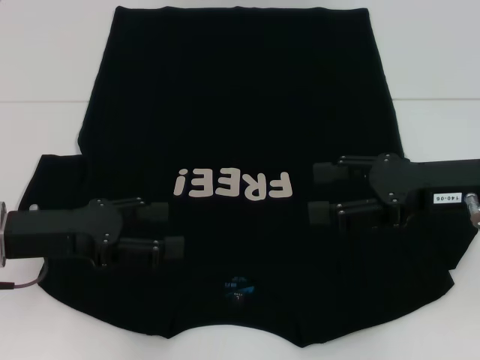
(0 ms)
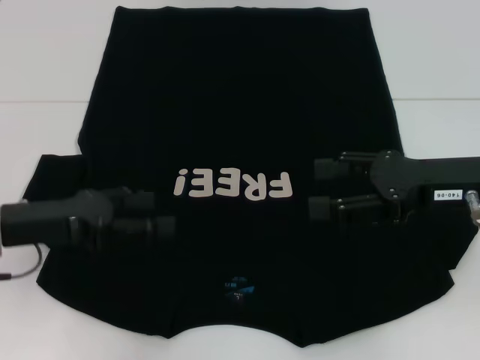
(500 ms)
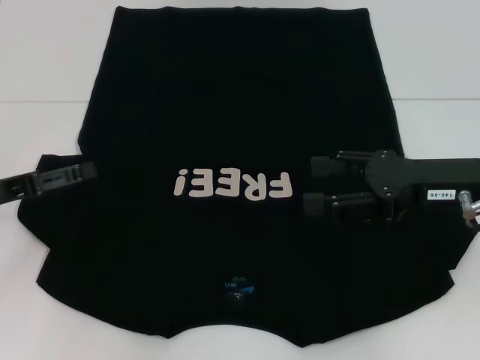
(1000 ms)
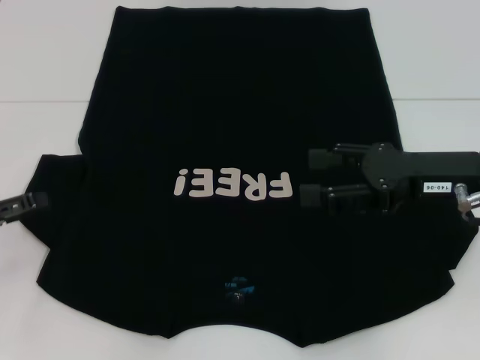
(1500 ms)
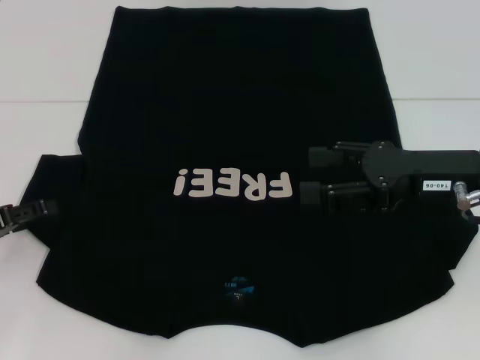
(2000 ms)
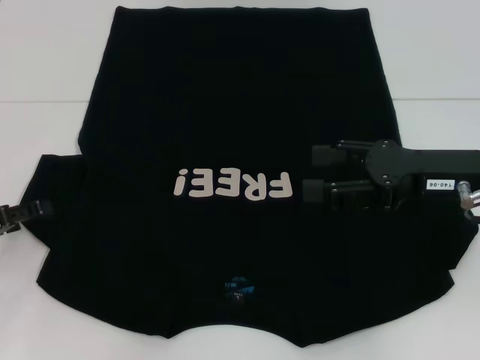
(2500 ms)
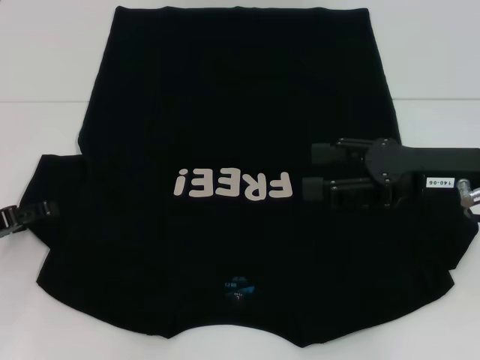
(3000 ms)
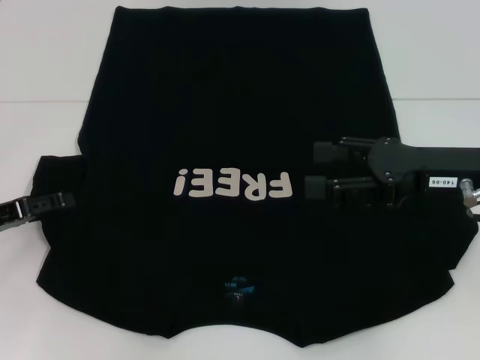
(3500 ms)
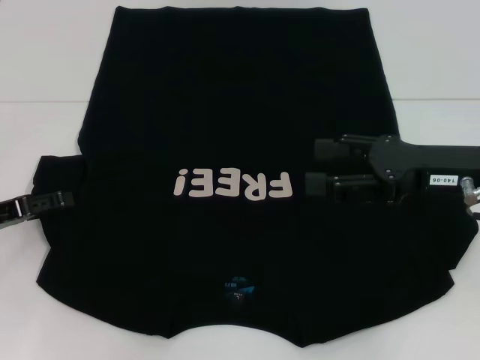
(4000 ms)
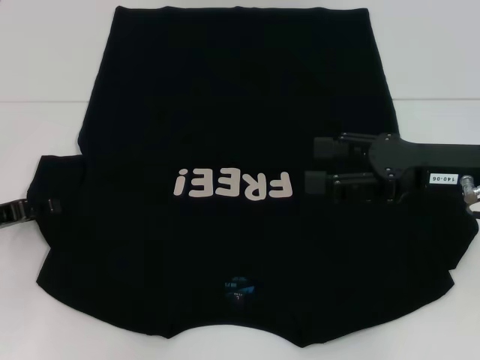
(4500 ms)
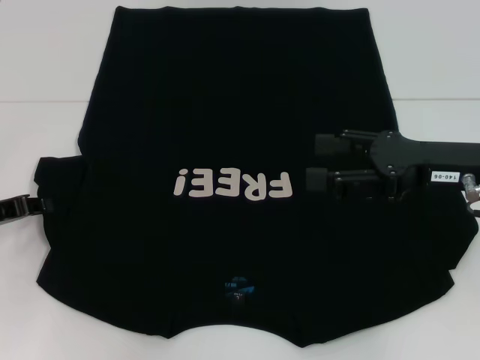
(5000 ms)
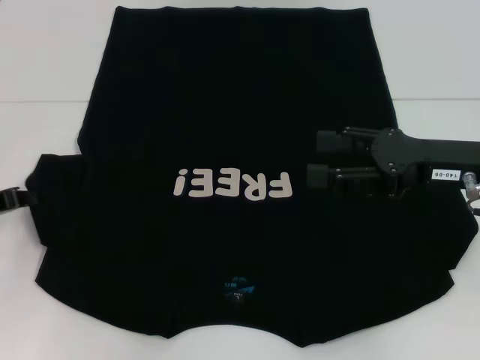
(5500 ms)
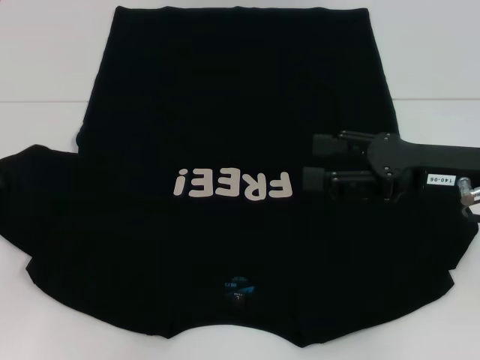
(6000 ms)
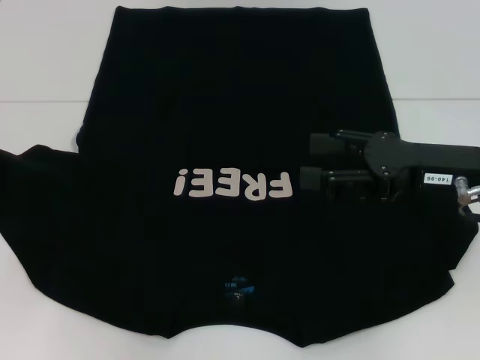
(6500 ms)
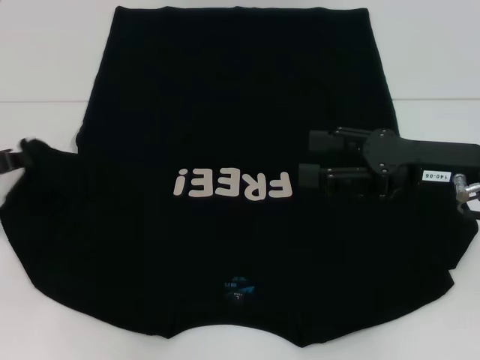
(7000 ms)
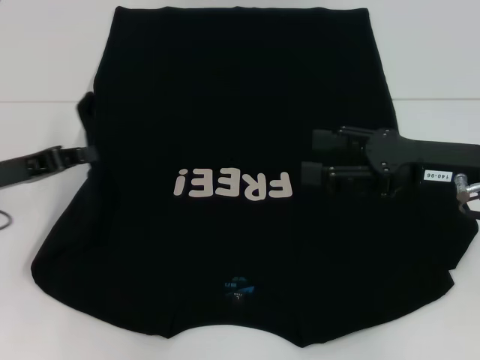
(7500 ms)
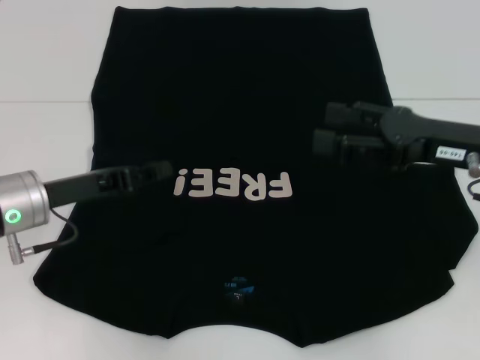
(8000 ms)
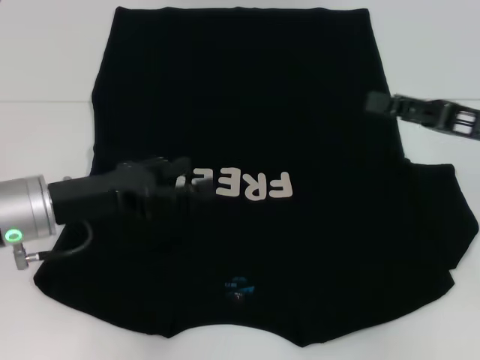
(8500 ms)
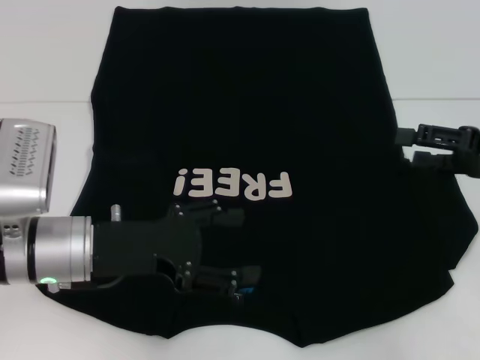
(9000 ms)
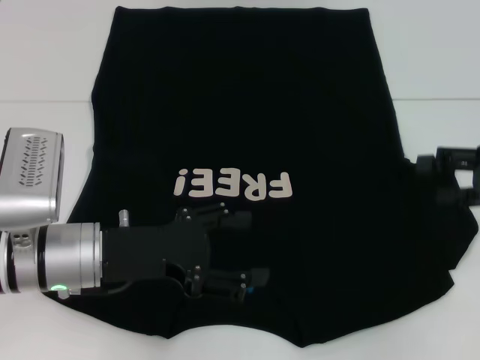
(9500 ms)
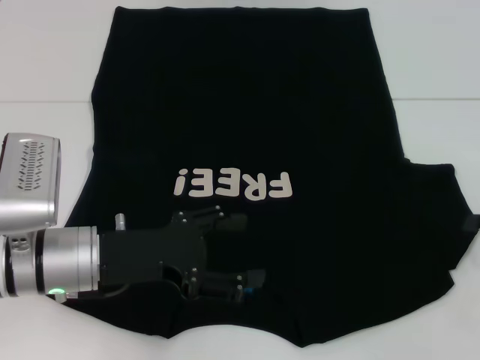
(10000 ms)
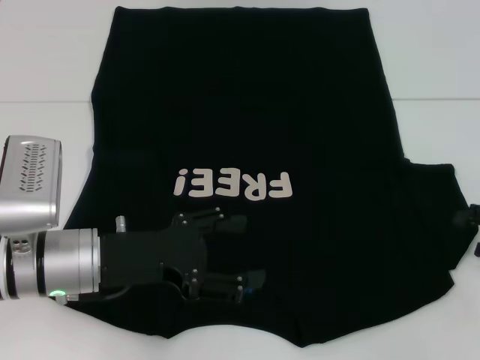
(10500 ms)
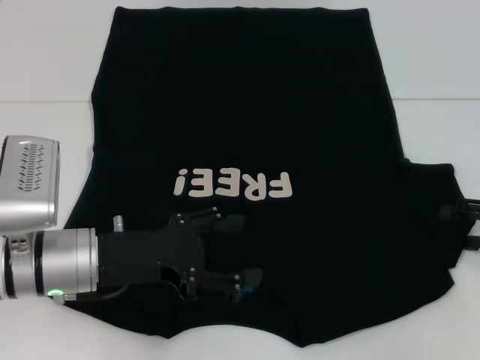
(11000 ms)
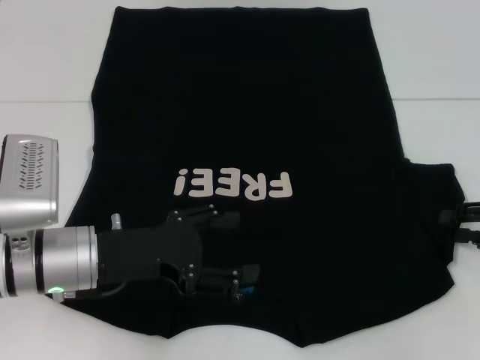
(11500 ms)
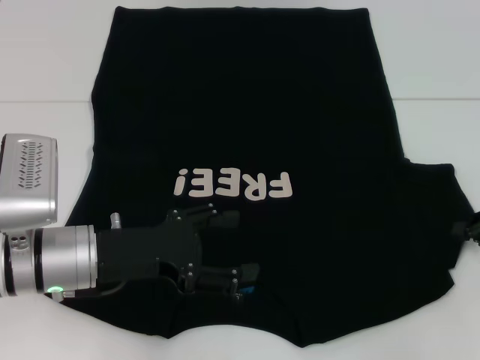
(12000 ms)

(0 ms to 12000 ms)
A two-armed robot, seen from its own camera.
Step, 0 ms - 7500 ms: Fold the bottom left sleeve with your left hand.
0 ms - 2000 ms: The left gripper moves to the left, roughly 10 cm.
2000 ms - 4000 ms: There are only small adjustments of the grippers.
4000 ms - 6000 ms: The left gripper closes up.
6000 ms - 8000 ms: The left gripper shifts approximately 15 cm to the right.
8000 ms - 10000 ms: The right gripper heads to the right, covering about 15 cm. Meanwhile the left gripper travels to the right by some 5 cm, and opens up.

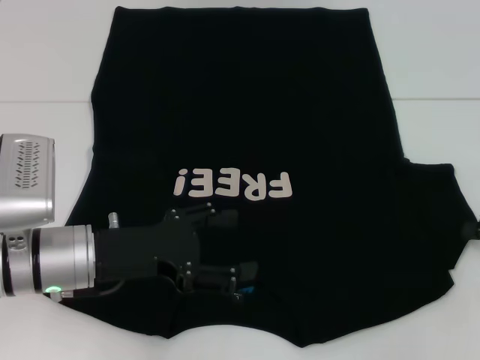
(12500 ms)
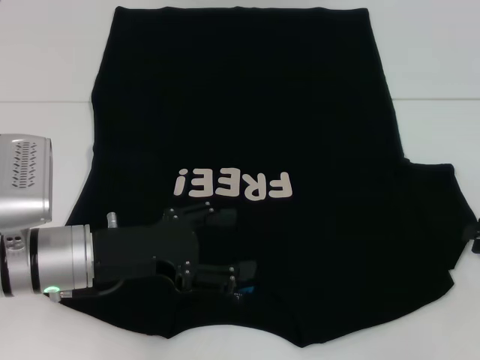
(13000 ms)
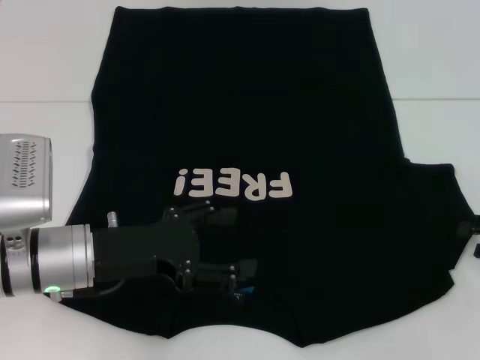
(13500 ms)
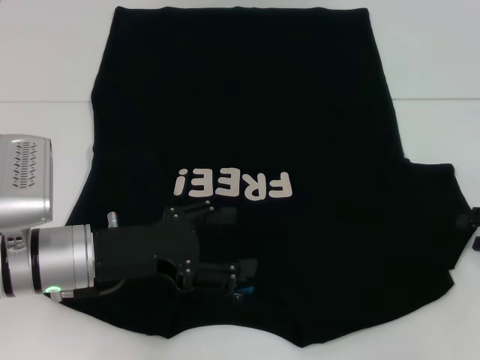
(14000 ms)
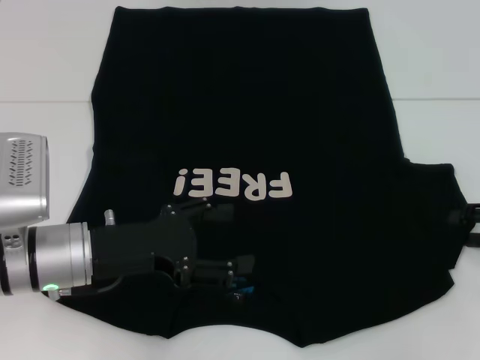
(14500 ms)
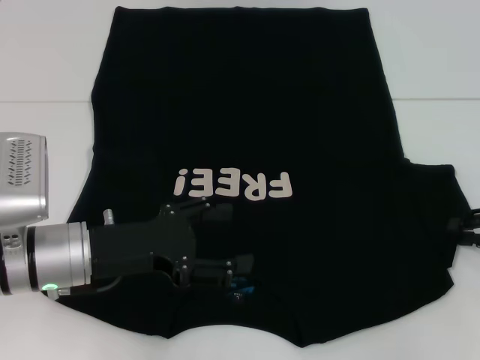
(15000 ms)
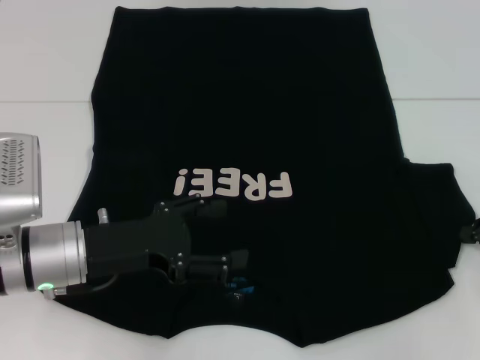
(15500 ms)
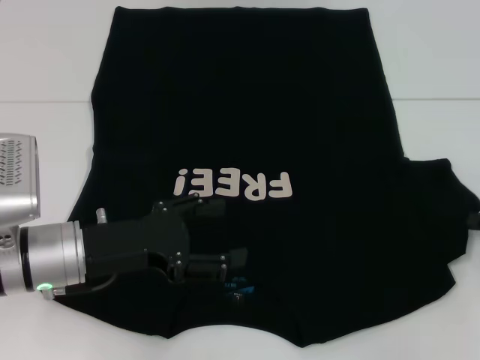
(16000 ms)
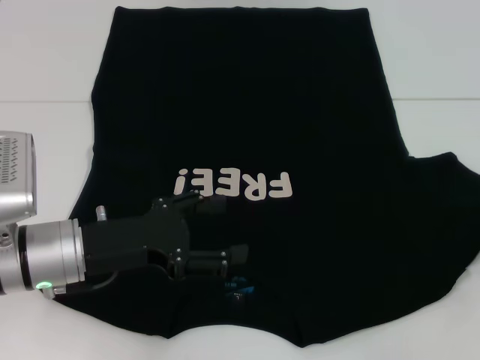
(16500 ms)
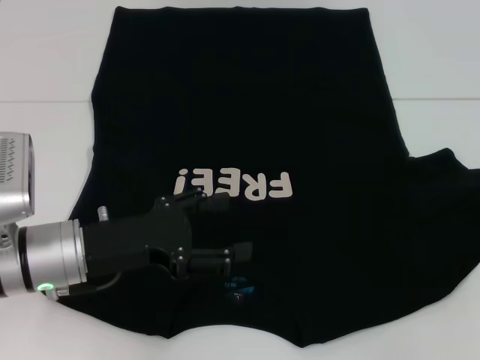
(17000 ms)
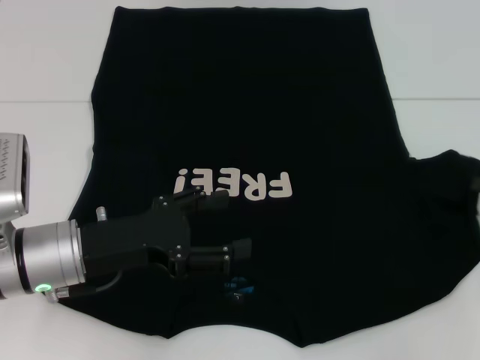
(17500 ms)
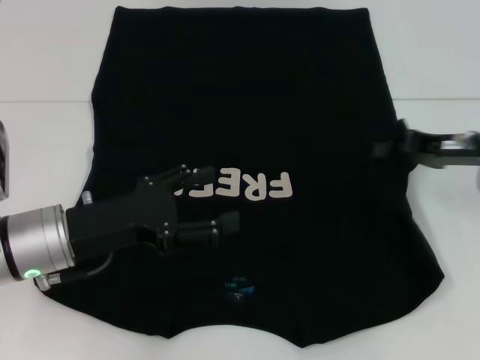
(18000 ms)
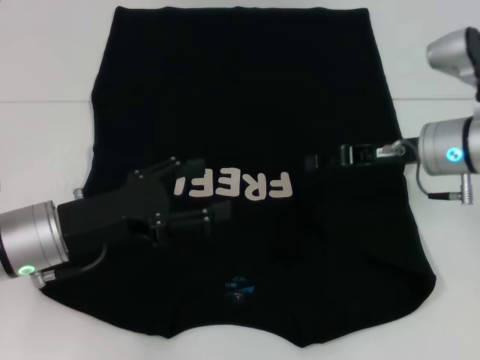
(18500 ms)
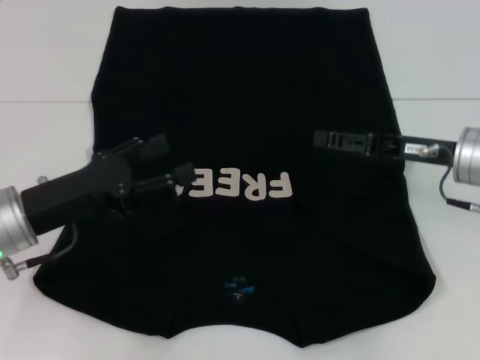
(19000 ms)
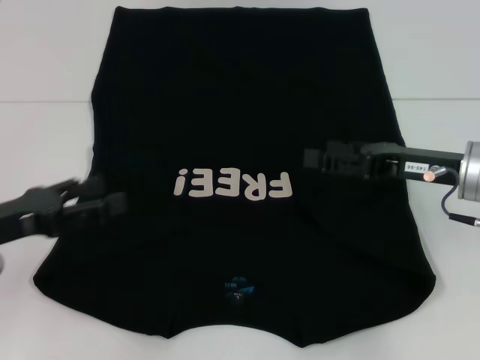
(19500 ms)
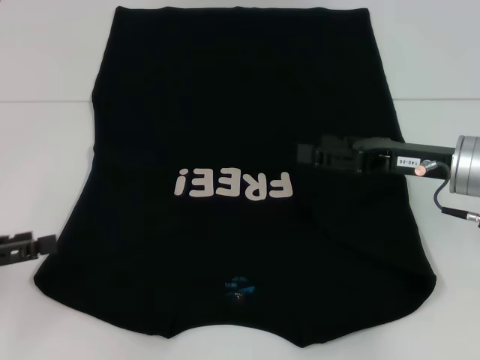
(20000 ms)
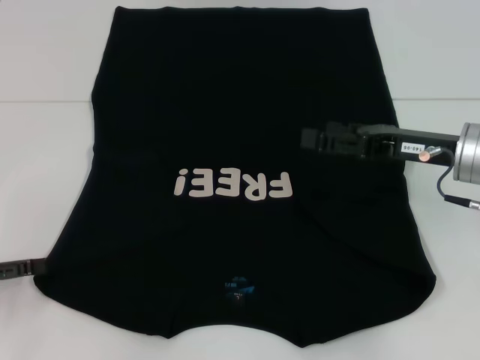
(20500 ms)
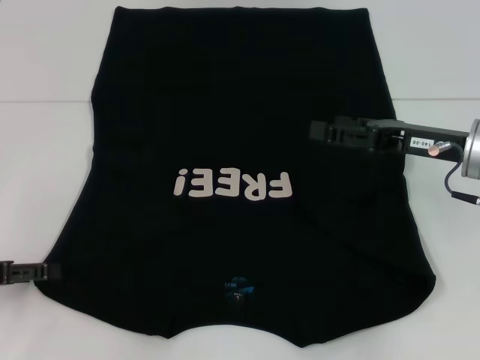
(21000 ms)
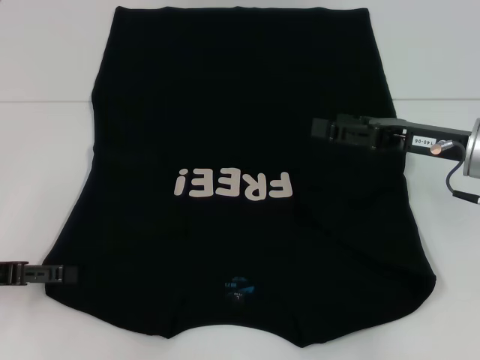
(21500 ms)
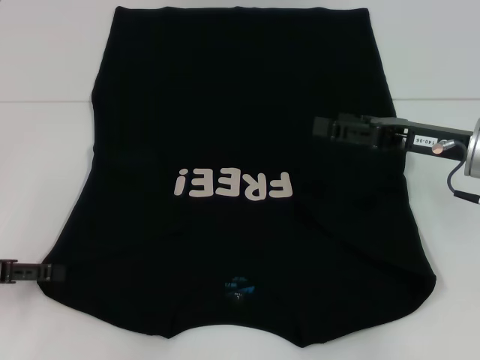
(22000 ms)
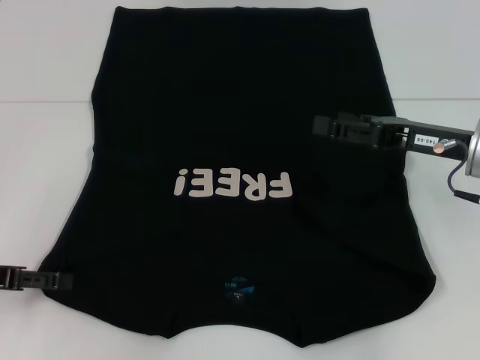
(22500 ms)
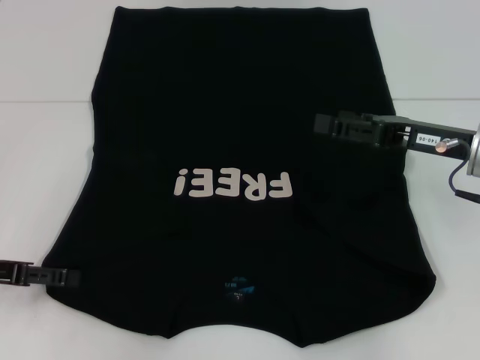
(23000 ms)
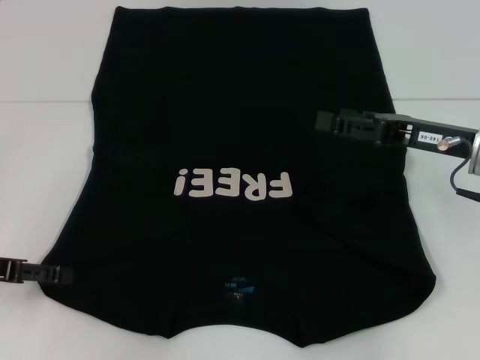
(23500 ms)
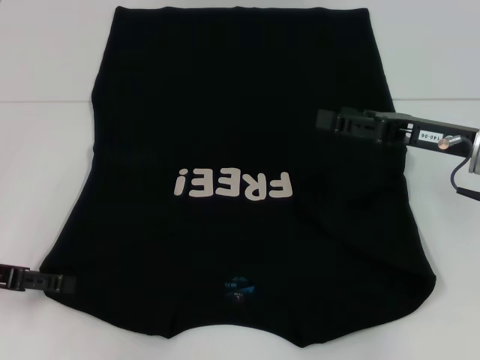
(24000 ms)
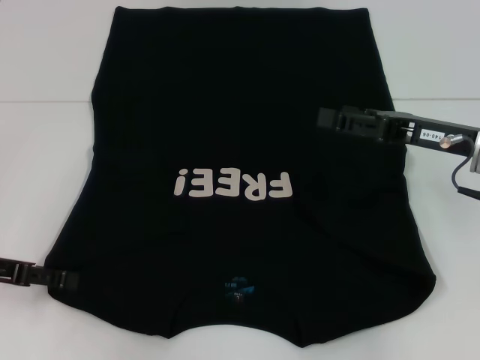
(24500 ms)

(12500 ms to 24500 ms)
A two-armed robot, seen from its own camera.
Step, 12500 ms - 18000 ms: Fold the bottom right sleeve with your right hand.
14500 ms - 16500 ms: The right gripper closes its fingers.
16500 ms - 18500 ms: The right gripper heads to the left and forward, covering about 20 cm.
18500 ms - 20500 ms: The right gripper opens, while the left gripper heads to the left, covering roughly 15 cm.
20500 ms - 24500 ms: There are only small adjustments of the grippers.

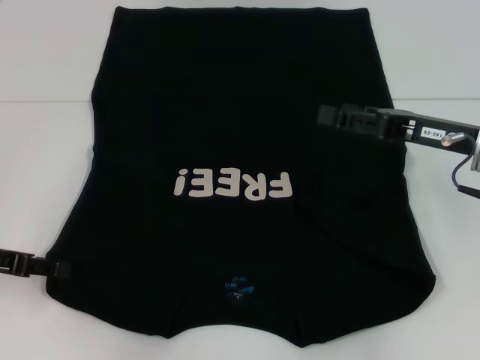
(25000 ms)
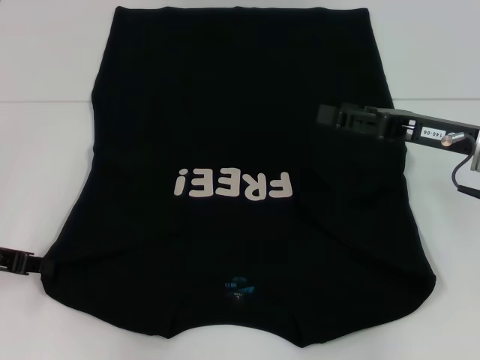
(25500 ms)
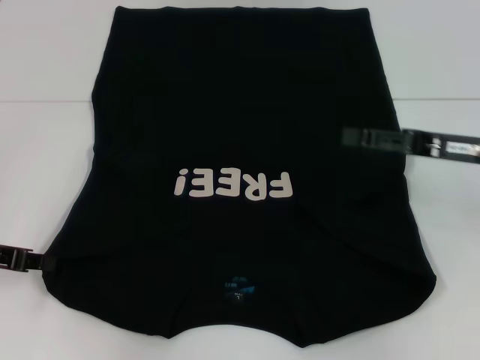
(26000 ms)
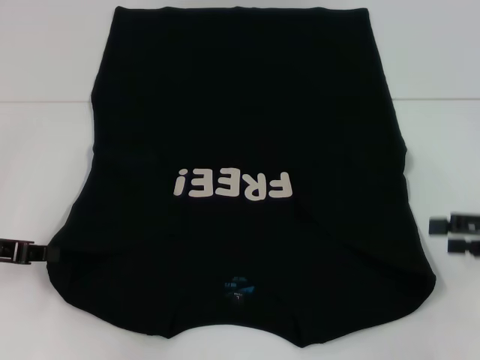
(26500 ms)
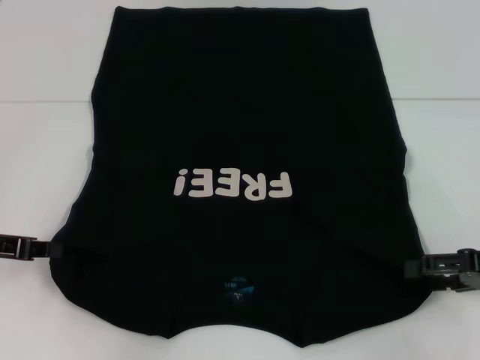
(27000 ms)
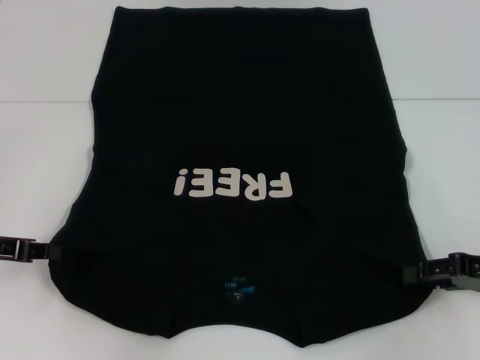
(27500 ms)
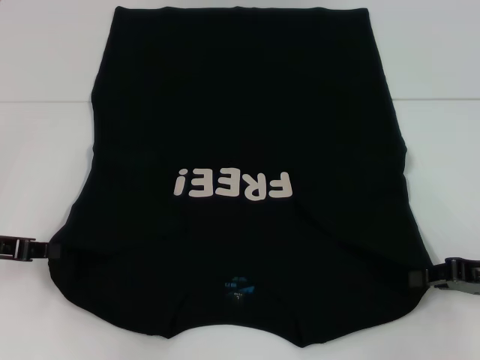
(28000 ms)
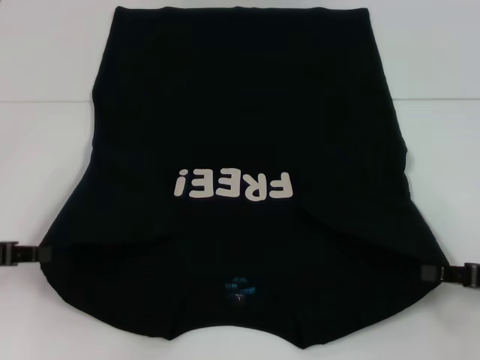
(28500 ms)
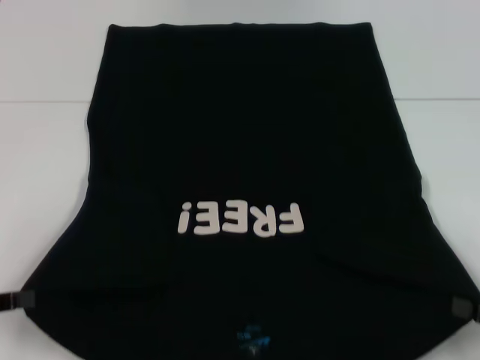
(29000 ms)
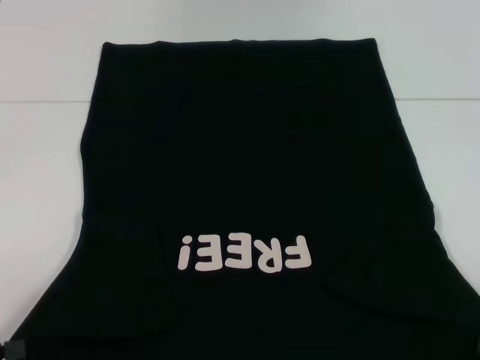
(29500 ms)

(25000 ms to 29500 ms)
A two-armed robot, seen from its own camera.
Step, 26000 ms - 28000 ms: Grab the bottom right corner with your right hand.
25000 ms - 27000 ms: The left gripper closes up. Meanwhile the right gripper shifts approximately 10 cm to the right, backward and downward.
27000 ms - 29500 ms: The two grippers go roughly 15 cm backward. The right gripper closes its fingers.
